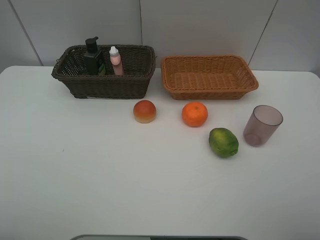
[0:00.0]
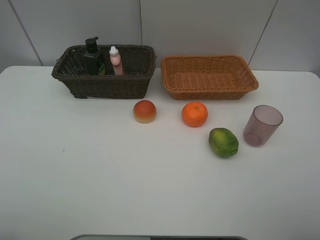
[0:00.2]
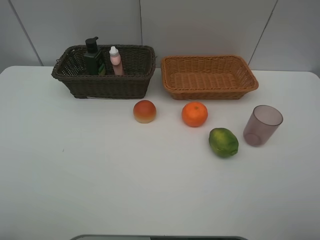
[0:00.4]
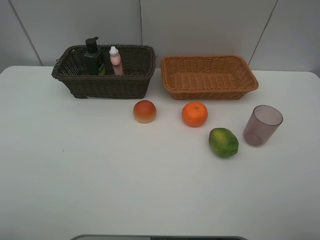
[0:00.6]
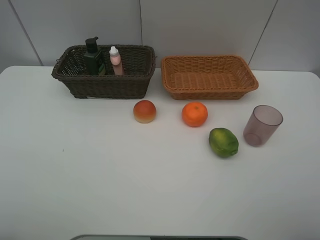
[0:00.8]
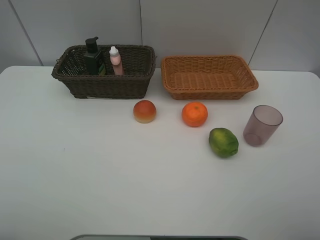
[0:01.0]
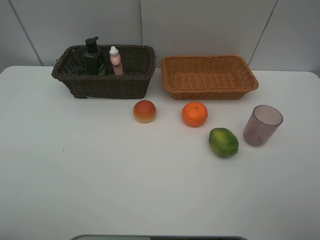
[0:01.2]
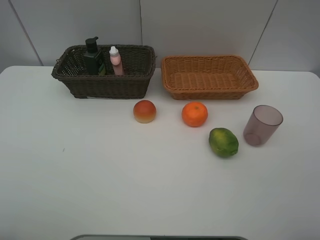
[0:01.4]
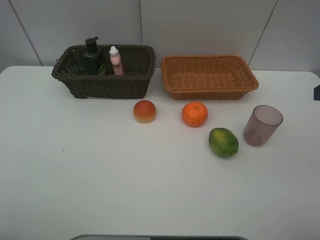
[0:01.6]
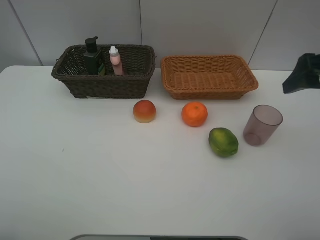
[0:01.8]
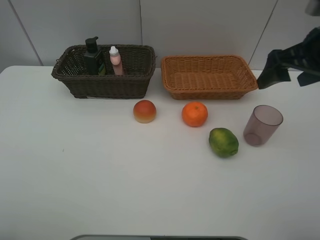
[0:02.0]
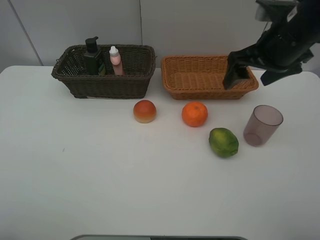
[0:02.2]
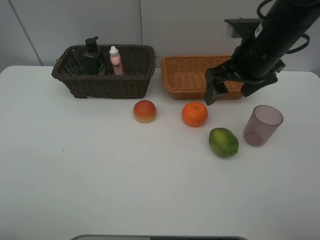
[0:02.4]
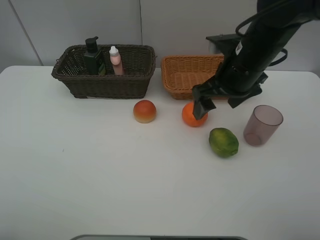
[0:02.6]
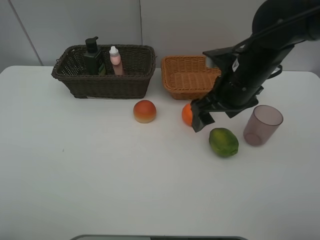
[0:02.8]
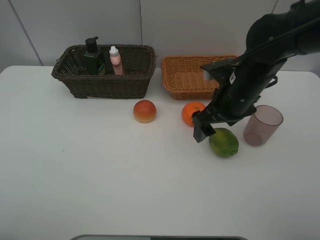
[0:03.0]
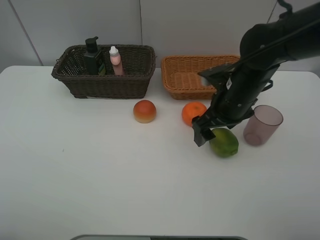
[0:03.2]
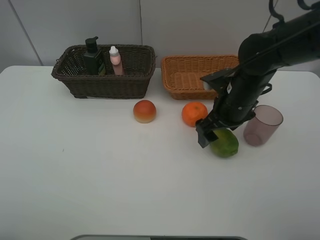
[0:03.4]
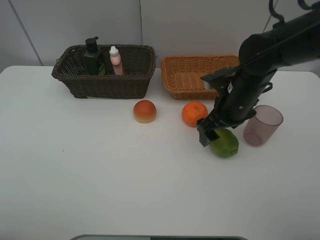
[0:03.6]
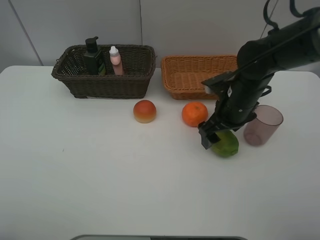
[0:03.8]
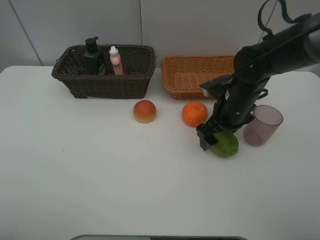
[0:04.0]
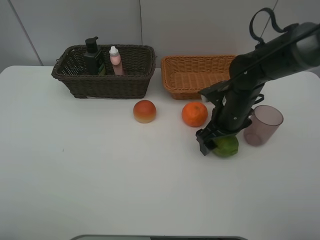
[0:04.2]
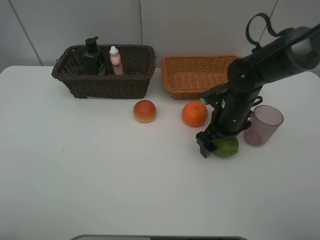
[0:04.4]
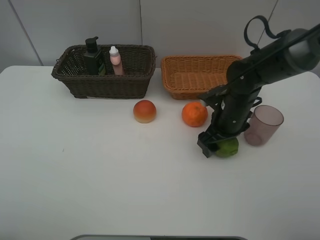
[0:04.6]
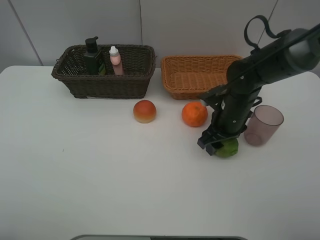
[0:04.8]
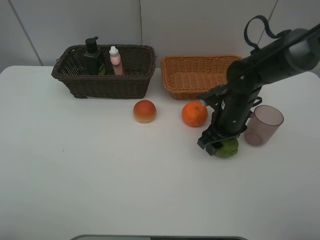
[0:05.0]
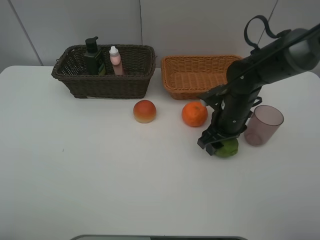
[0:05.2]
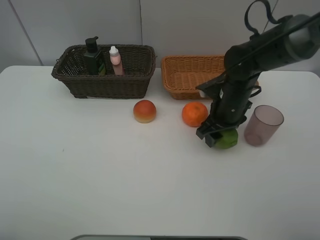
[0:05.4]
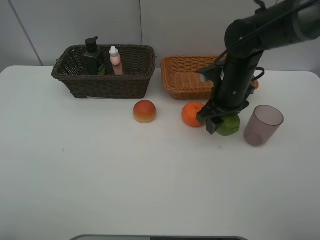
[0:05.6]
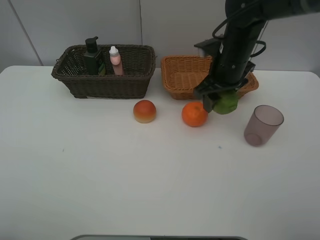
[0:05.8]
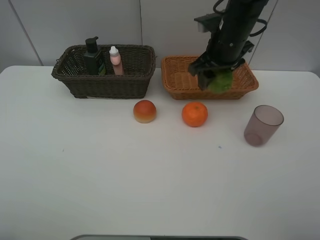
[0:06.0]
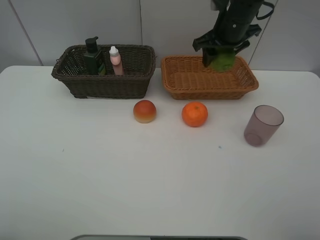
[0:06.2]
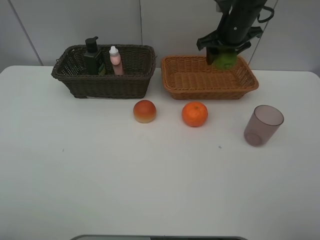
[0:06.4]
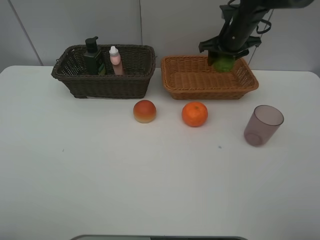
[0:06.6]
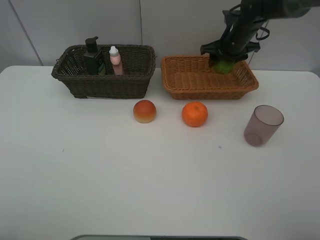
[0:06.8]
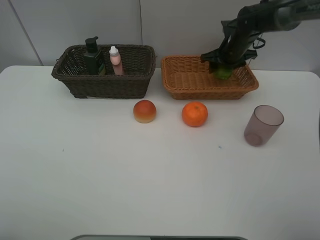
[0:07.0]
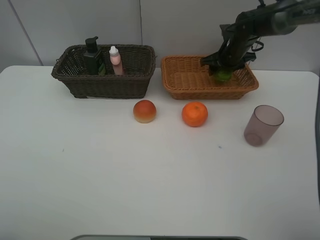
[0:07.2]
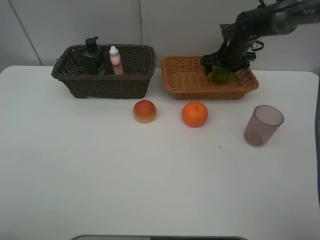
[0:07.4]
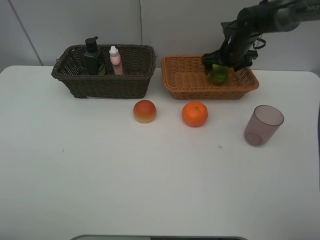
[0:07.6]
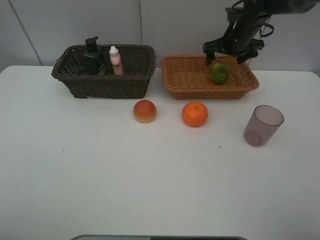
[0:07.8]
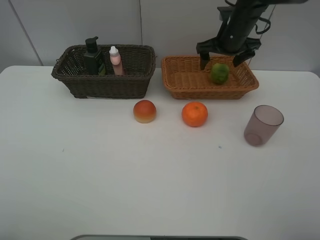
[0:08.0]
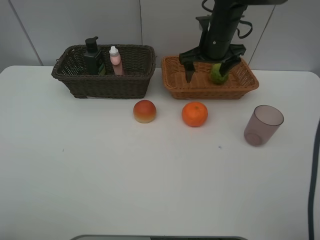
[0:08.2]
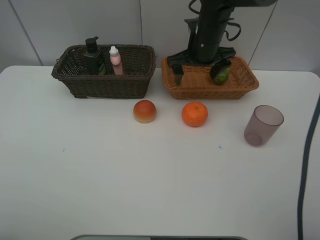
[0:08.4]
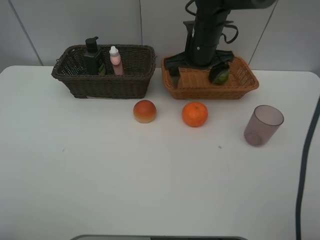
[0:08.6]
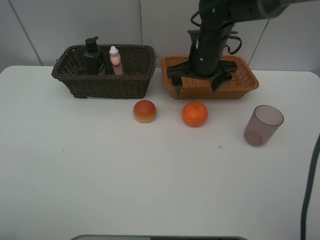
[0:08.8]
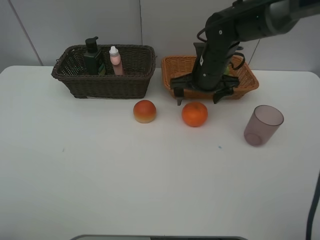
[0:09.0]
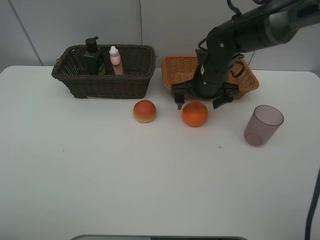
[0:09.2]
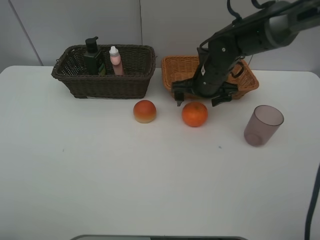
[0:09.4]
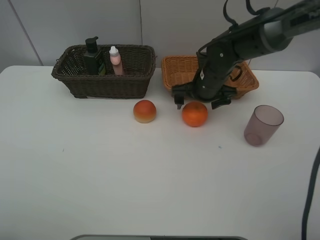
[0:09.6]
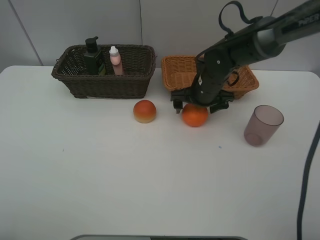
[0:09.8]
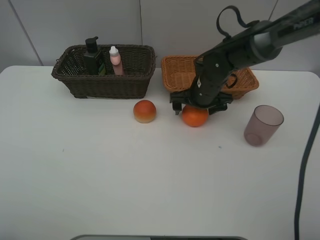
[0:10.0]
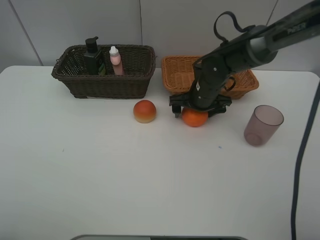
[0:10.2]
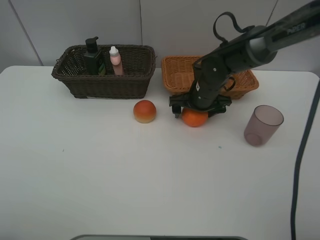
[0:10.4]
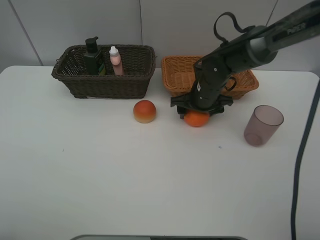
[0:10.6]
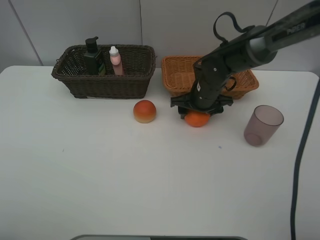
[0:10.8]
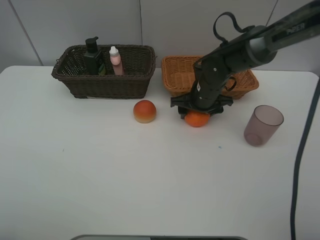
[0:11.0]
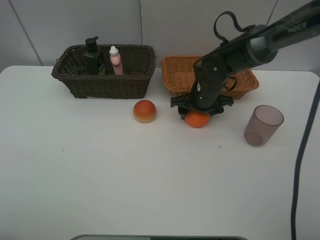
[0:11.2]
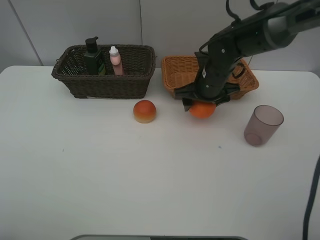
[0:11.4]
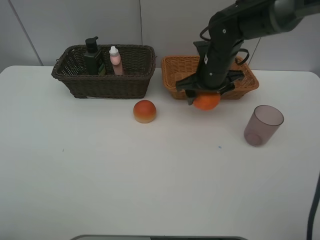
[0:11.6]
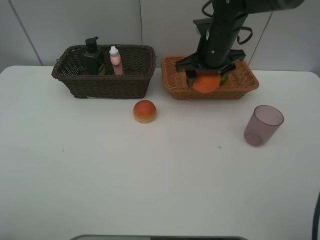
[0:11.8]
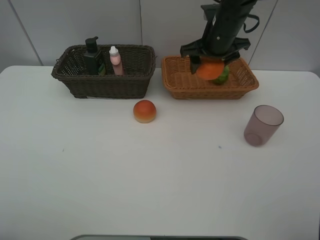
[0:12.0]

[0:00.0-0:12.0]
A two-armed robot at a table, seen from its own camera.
Task of the whole recording: place multiple objects separately in different baskets.
0:01.6 to 0:03.0: The right gripper heads to the left, downward and forward, covering roughly 25 cm.
0:03.0 to 0:04.4: The right gripper heads downward, covering roughly 10 cm.
0:04.4 to 0:06.0: The right gripper shifts about 15 cm upward and forward, and closes up.
0:06.0 to 0:07.6: The right gripper heads forward, downward and to the right, covering approximately 15 cm, and opens its fingers.
0:07.6 to 0:09.0: The right gripper goes approximately 15 cm backward and to the left.
0:09.0 to 0:10.4: The right gripper is displaced downward by roughly 5 cm.
0:10.4 to 0:12.0: The right gripper moves upward, roughly 15 cm.

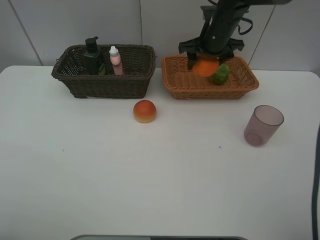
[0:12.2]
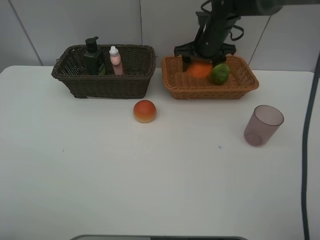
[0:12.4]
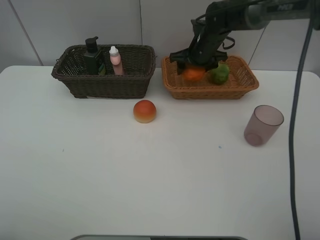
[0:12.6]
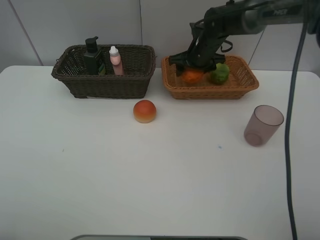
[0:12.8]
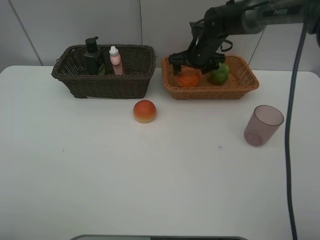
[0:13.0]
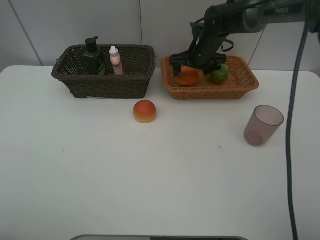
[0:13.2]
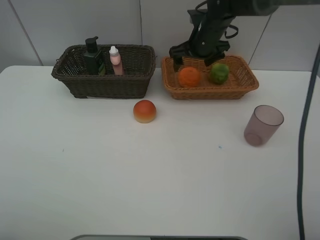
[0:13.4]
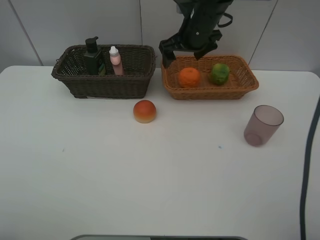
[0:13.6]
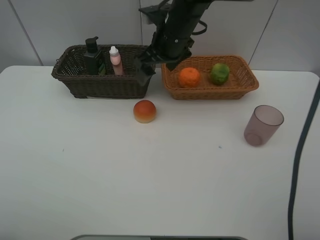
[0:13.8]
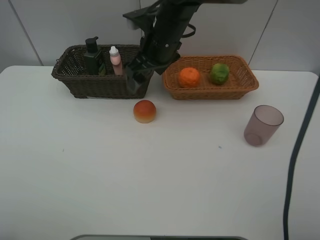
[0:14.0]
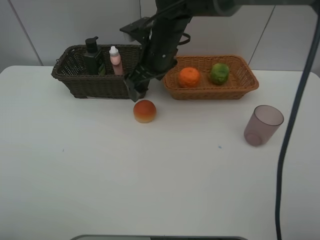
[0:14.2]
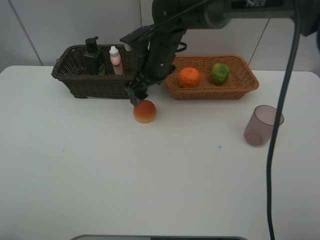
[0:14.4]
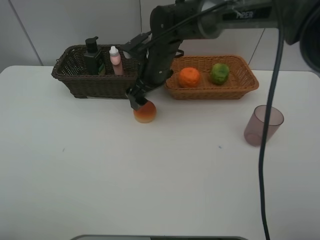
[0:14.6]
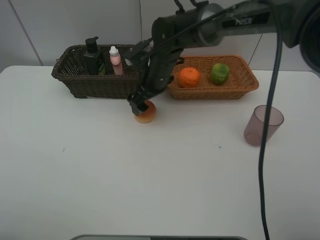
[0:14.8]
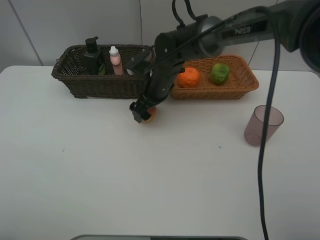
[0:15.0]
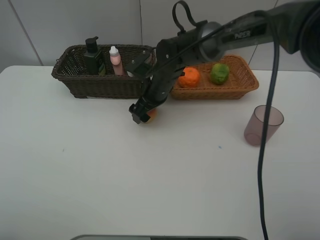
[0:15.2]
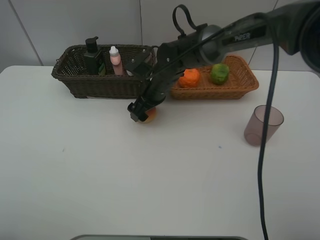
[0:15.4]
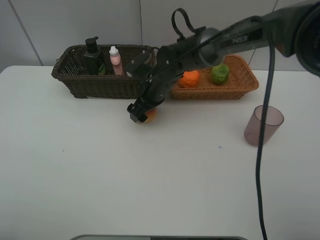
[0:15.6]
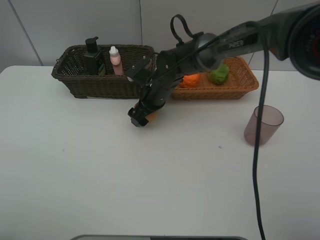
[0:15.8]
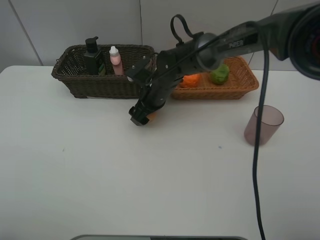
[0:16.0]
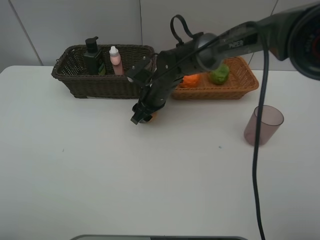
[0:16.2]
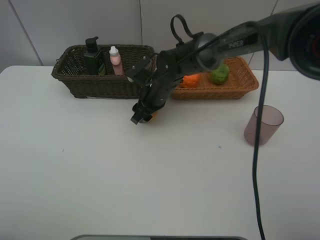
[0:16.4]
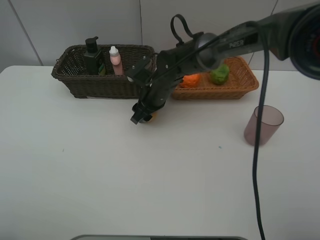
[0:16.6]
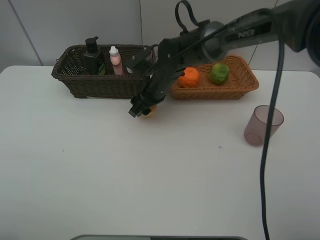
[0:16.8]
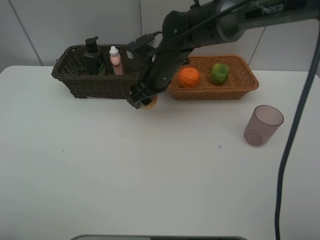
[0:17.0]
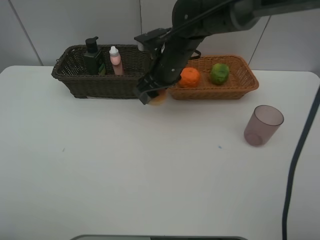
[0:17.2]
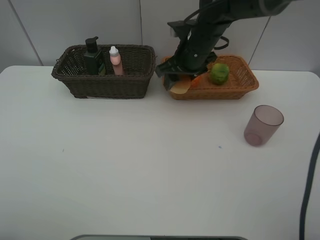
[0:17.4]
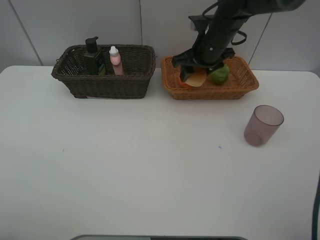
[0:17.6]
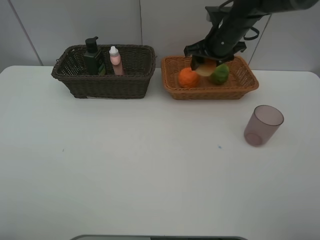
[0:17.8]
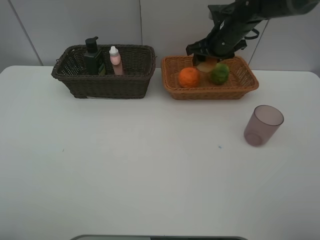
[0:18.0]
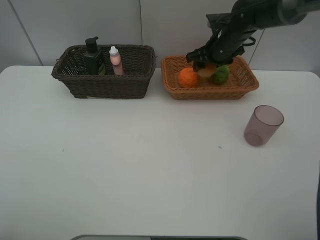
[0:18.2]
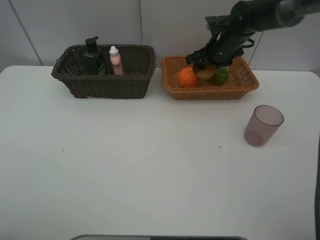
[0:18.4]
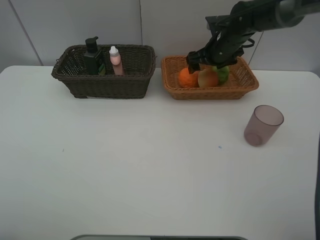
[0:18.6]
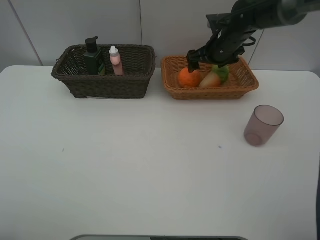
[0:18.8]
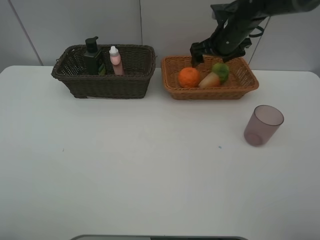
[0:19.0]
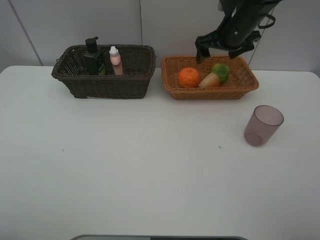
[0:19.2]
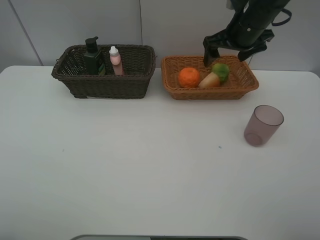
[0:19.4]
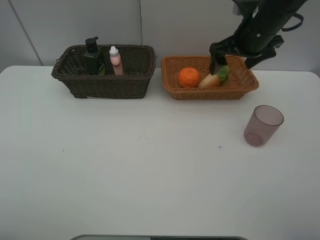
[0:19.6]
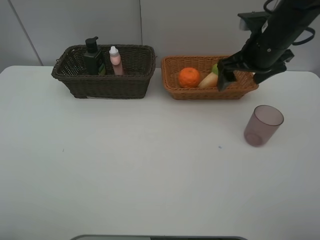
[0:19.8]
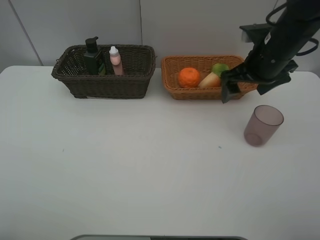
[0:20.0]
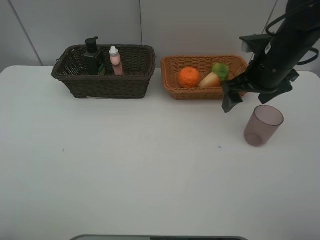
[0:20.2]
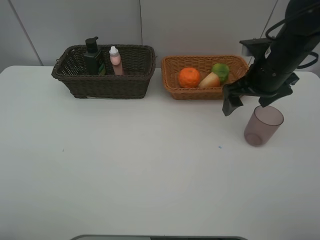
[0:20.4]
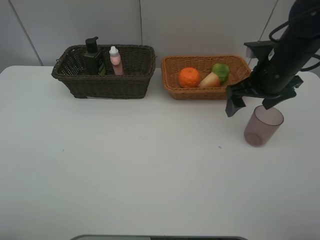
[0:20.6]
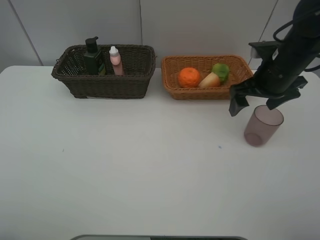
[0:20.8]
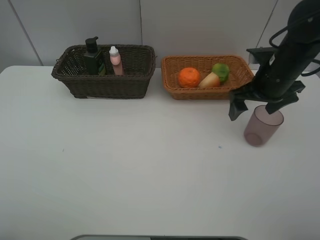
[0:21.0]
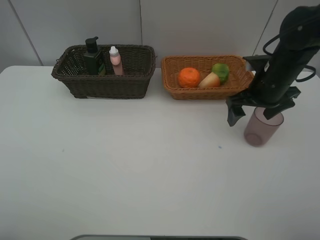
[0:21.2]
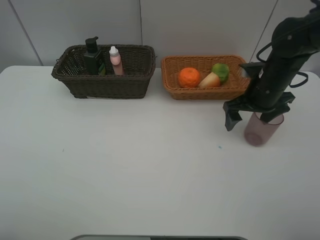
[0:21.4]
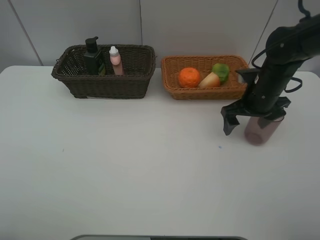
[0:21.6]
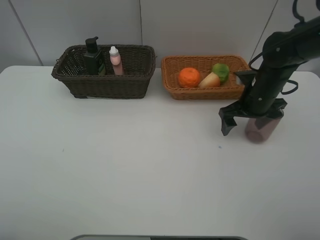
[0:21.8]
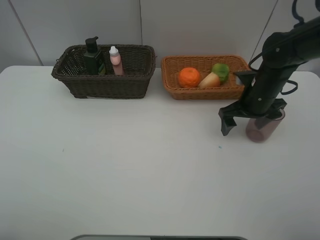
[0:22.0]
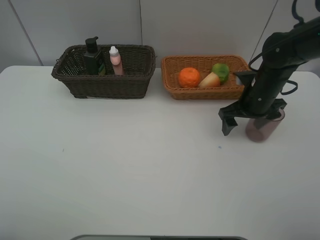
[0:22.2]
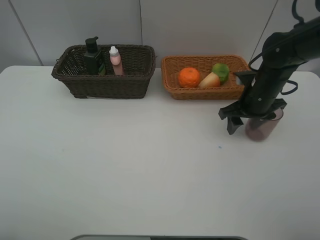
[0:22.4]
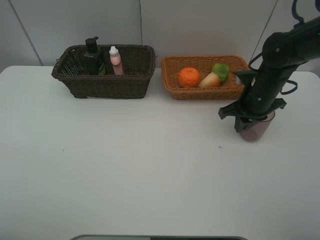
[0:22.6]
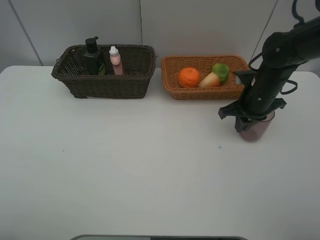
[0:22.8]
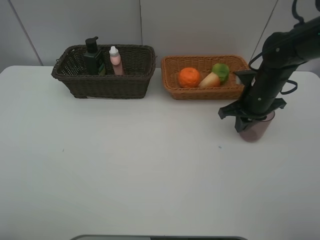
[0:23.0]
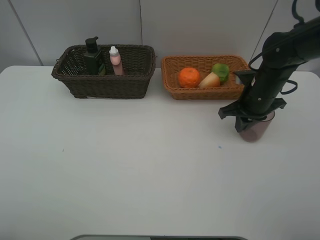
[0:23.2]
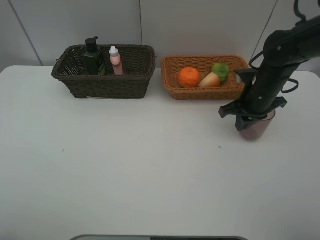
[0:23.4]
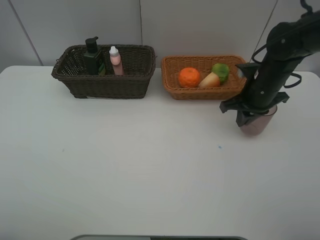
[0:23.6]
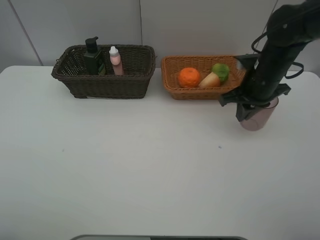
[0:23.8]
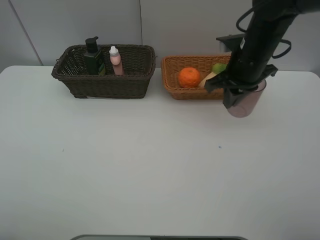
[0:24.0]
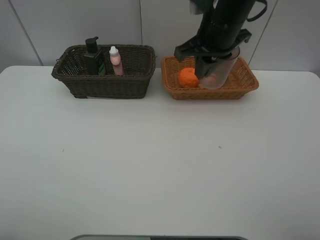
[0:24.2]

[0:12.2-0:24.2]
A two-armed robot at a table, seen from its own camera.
Task of the whole recording: place multiple objects separately in different baskets.
0:12.2 to 0:13.8: The right gripper goes roughly 15 cm to the left and backward.
0:13.8 to 0:15.2: The right gripper goes approximately 10 cm downward.
0:15.2 to 0:16.6: The right gripper closes.
0:16.6 to 0:18.2: The right gripper travels to the right, forward and upward by some 20 cm.
0:18.2 to 0:19.8: The right gripper heads backward and upward, covering approximately 15 cm, and opens up.
0:19.8 to 0:21.2: The right gripper shifts some 5 cm downward.
0:21.2 to 0:22.6: The right gripper closes up.
0:22.6 to 0:24.2: The right gripper heads upward and to the left, covering roughly 20 cm.
